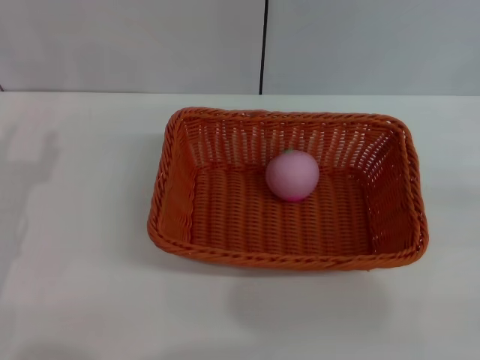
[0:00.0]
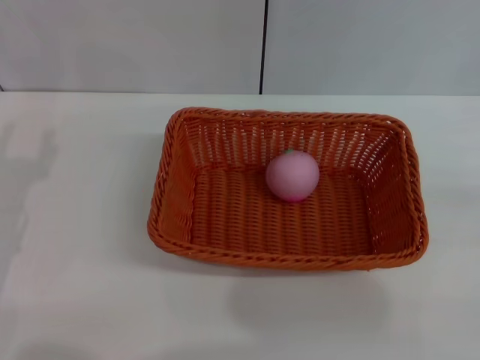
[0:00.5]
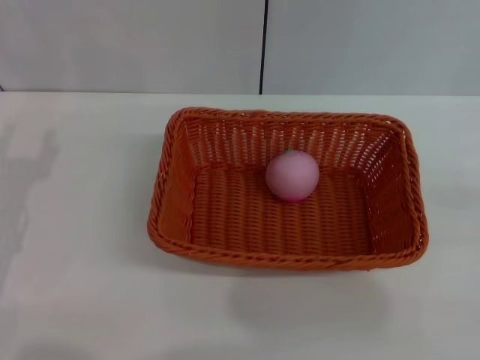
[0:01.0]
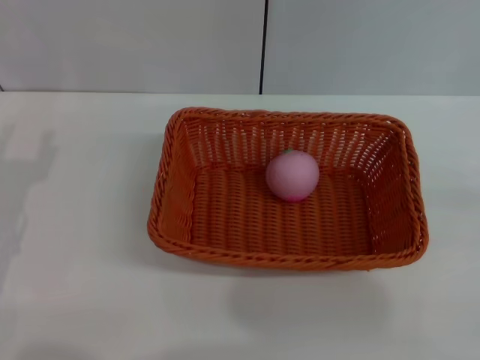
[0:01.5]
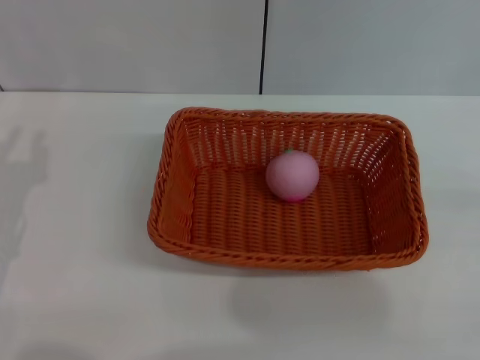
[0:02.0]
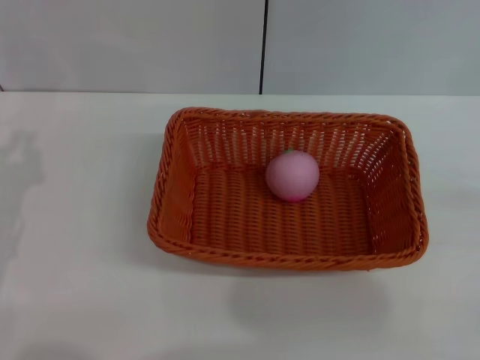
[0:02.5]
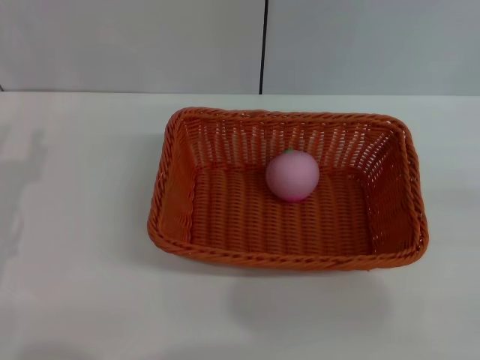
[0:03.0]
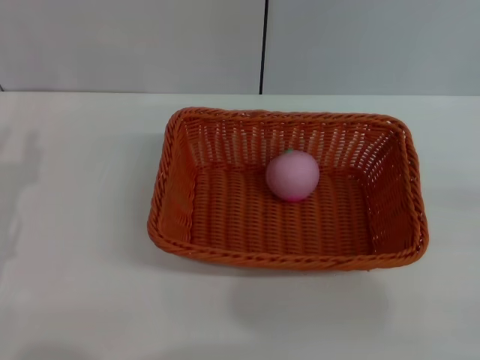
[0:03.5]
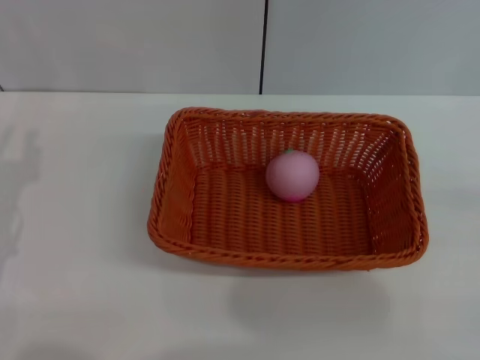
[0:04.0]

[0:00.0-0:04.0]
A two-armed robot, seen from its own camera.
0:00.0 to 0:04.0: Both grippers stay about where they are.

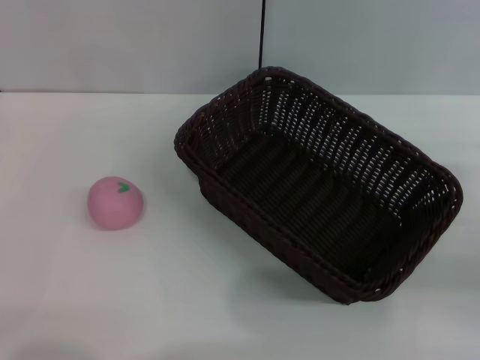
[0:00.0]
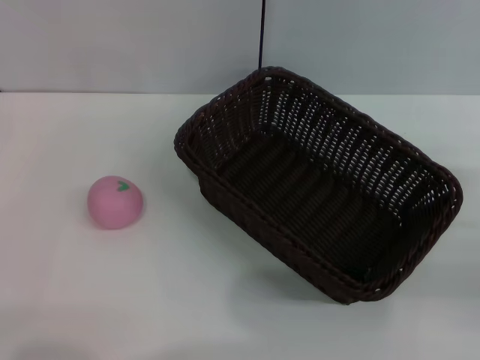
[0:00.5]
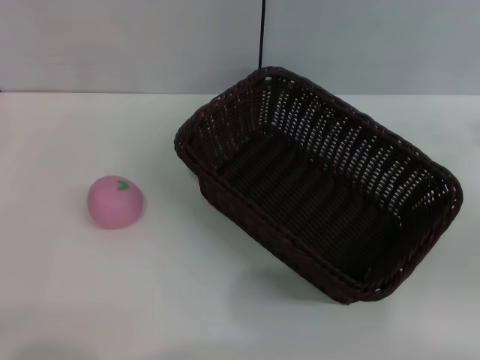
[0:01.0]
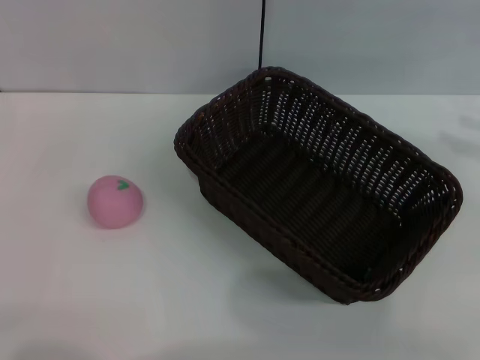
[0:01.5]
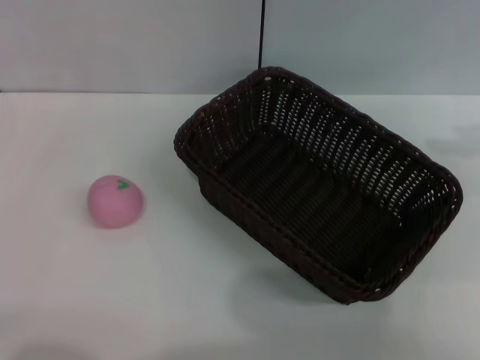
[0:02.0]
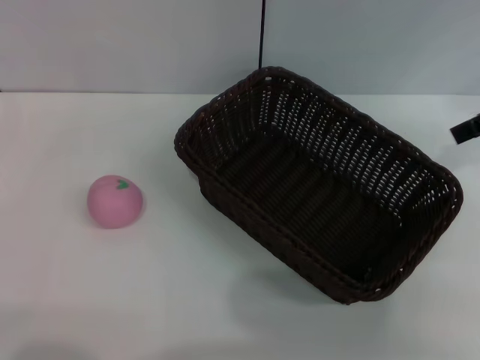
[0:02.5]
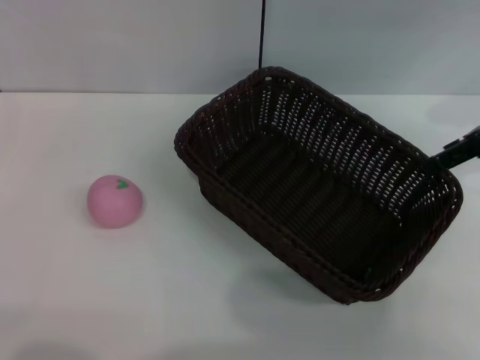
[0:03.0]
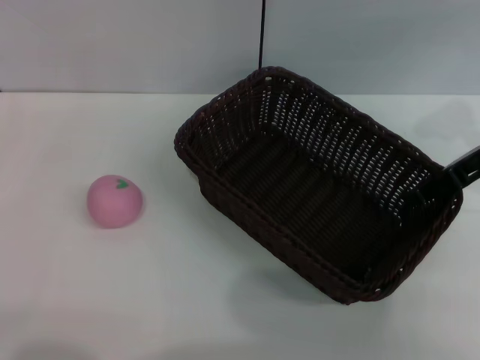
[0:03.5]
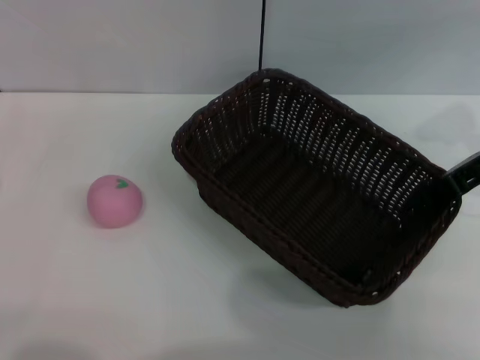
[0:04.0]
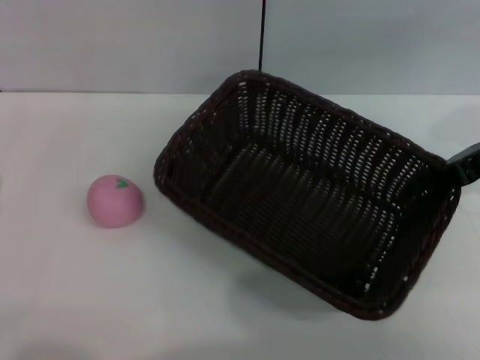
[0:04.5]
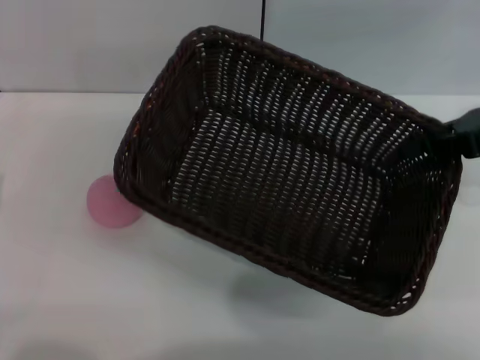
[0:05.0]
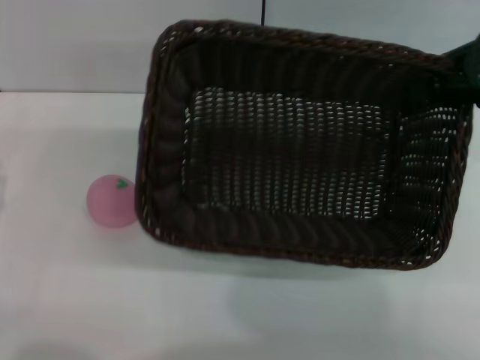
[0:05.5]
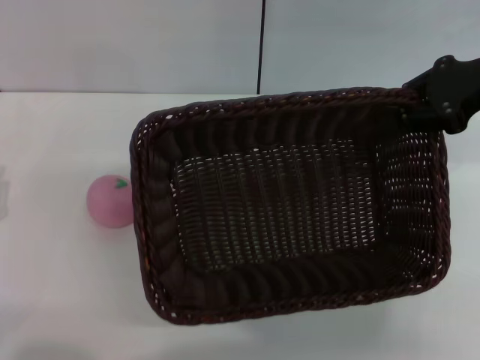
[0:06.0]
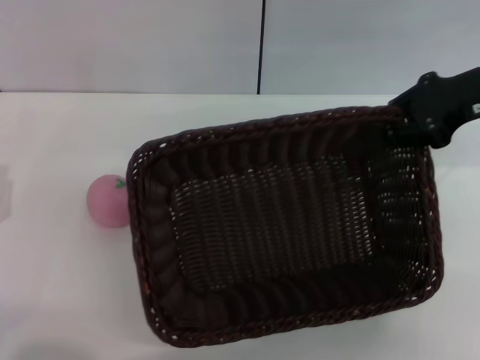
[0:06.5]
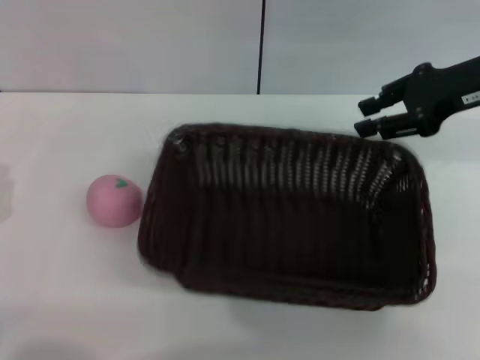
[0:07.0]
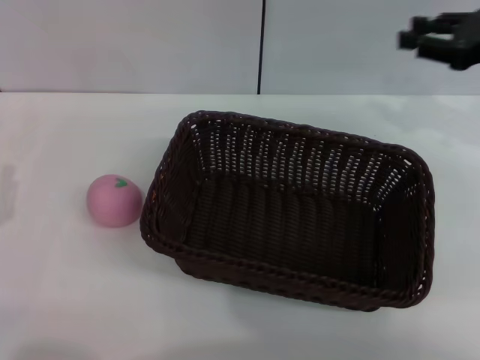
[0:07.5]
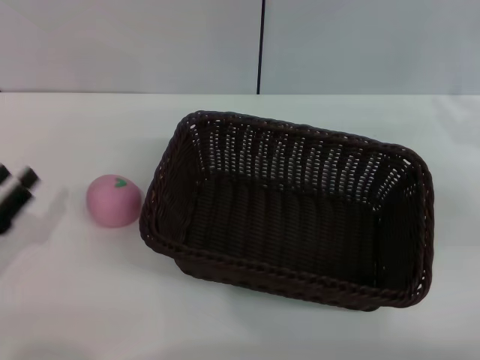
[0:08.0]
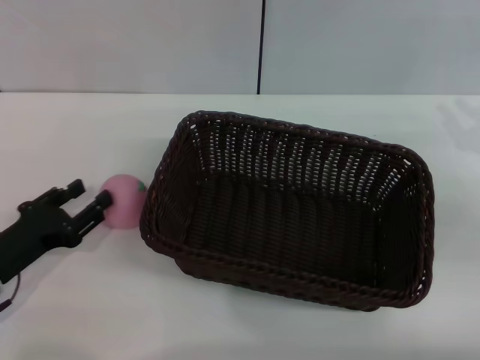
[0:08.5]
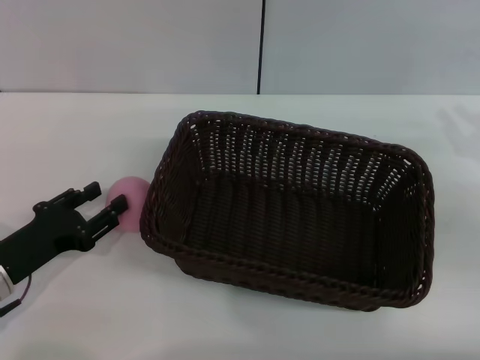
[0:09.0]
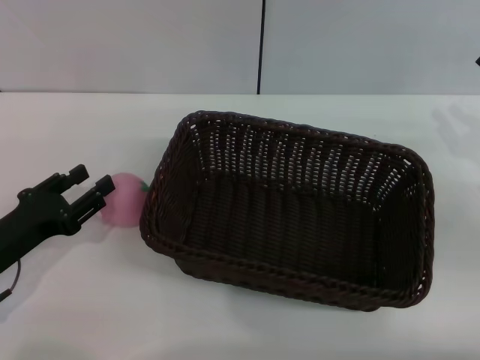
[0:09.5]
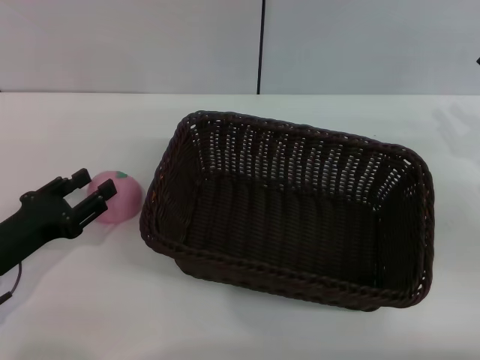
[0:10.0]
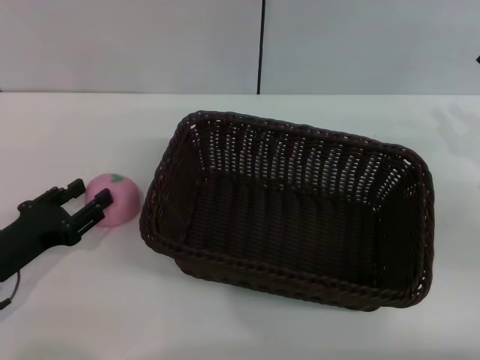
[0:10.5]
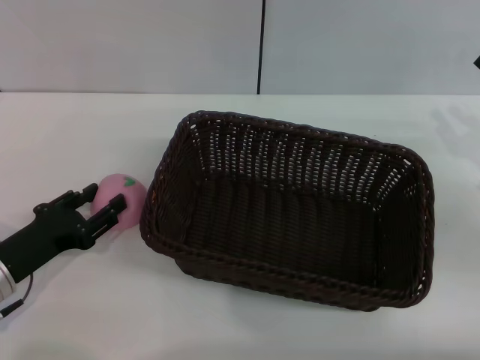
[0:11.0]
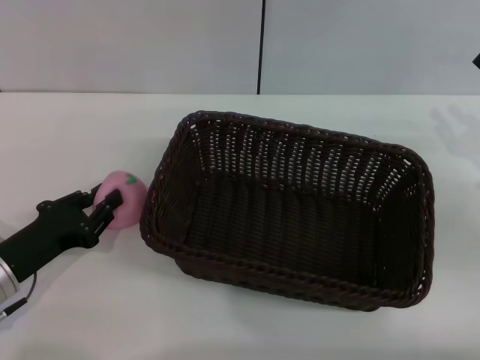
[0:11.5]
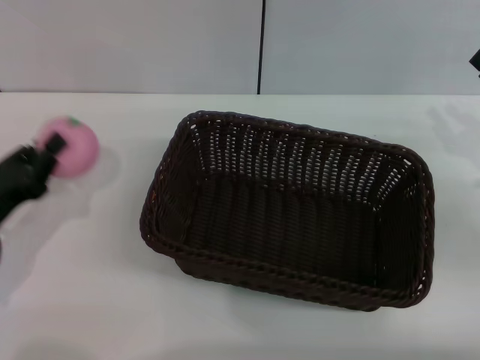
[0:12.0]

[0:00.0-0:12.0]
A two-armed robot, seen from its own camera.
Step, 0:00.0 to 0:04.0: Pick up the dark basket with the right gripper.
Step, 0:05.0 to 0:07.0: Place the dark basket in the center of view with the right gripper.
Step, 0:07.5 to 0:12.0: Pick up the peach with the left gripper.
0:00.0 to 0:02.0: The right gripper moves upward and forward, approximately 20 cm.
0:02.0 to 0:04.0: The right gripper goes about 15 cm downward and to the left, and closes its fingers.
0:04.0 to 0:06.0: The right gripper shifts by roughly 5 cm.
0:06.0 to 0:08.0: The right gripper goes approximately 15 cm downward, to the right and backward, and opens up.
0:08.0 to 0:10.0: The left gripper ends up roughly 5 cm from where it was.
0:10.0 to 0:12.0: The left gripper closes.

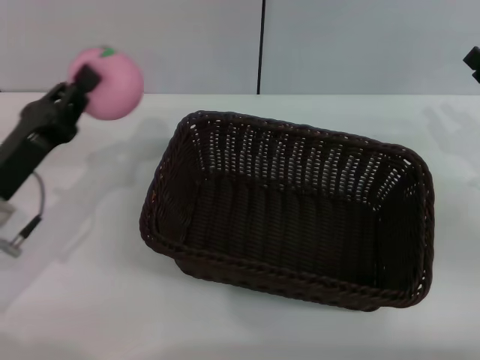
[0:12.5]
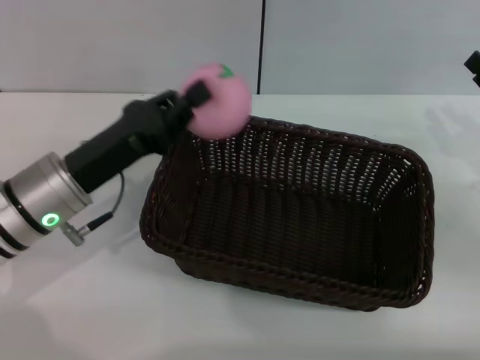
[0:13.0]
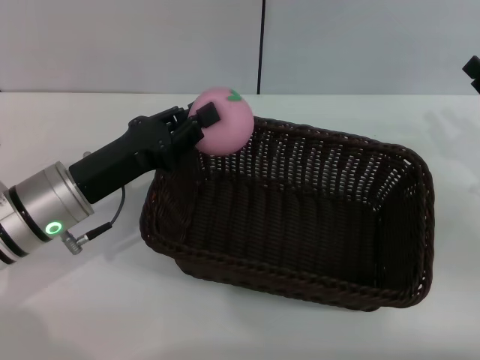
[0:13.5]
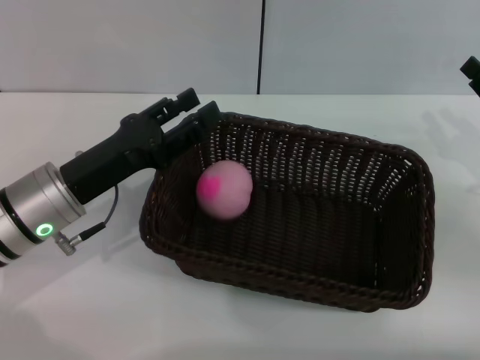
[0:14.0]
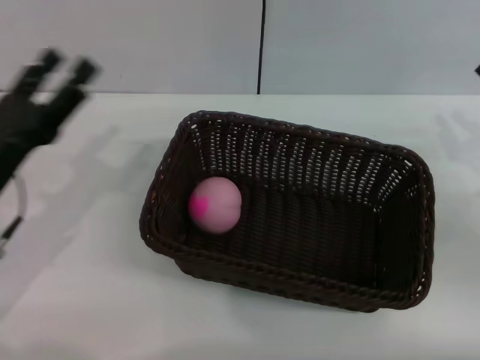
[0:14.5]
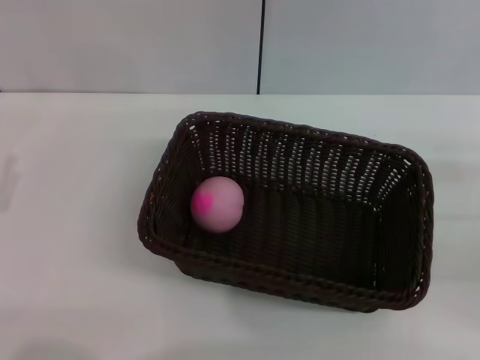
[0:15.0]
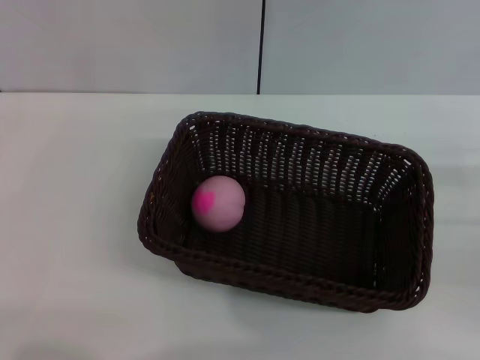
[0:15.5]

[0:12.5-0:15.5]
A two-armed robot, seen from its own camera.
Step, 0:12.5 to 0:14.0: Place the peach into the basket with the left gripper.
0:12.5 to 0:14.0: The left gripper is displaced to the right by approximately 5 cm, and opens its fingers.
0:14.0 to 0:15.5: The left gripper heads to the left and backward, covering some 15 cm, and opens, then closes again, while the right gripper goes roughly 5 cm backward.
